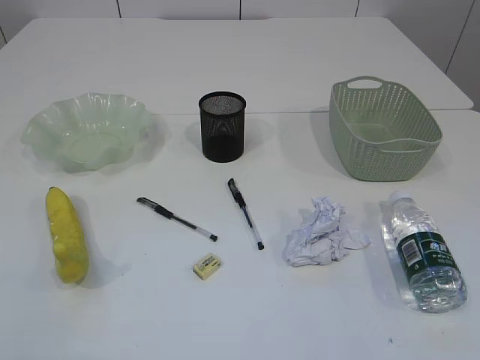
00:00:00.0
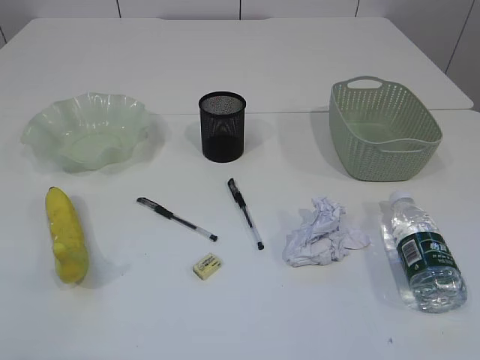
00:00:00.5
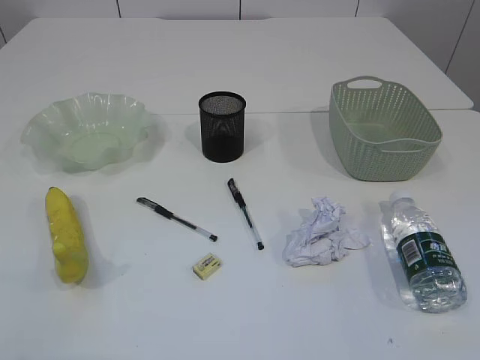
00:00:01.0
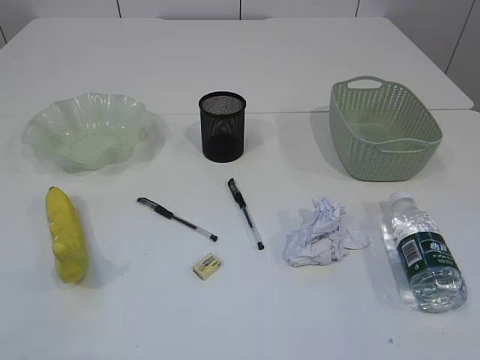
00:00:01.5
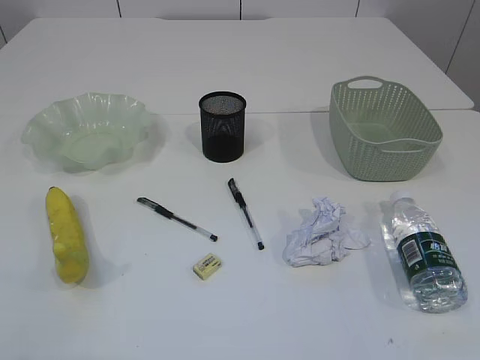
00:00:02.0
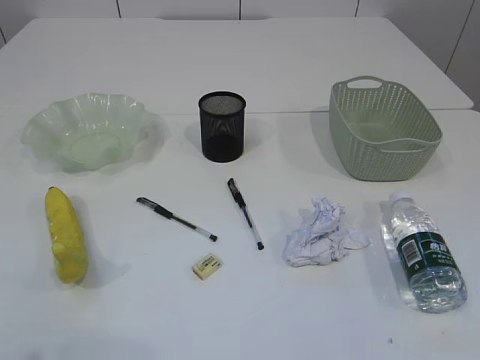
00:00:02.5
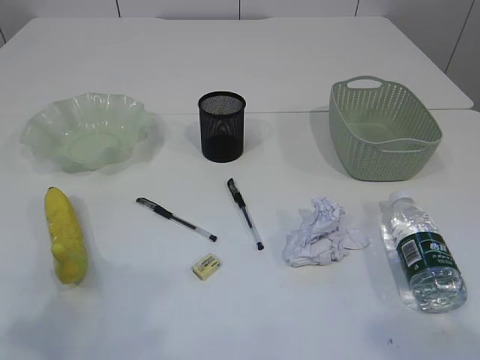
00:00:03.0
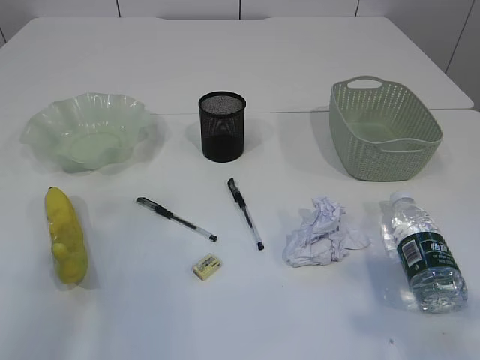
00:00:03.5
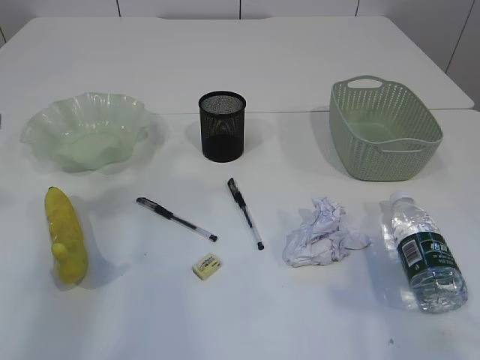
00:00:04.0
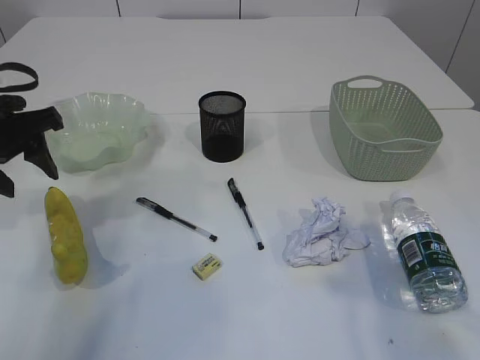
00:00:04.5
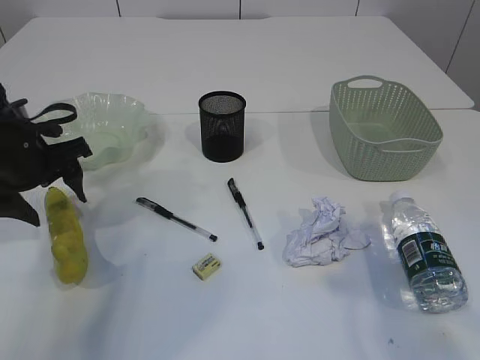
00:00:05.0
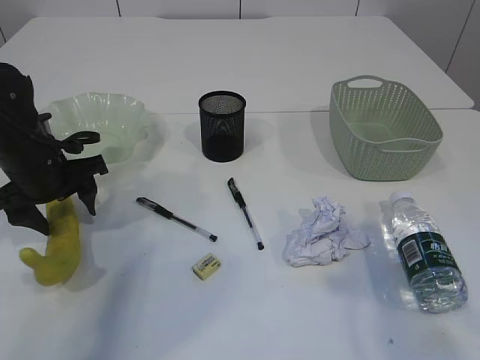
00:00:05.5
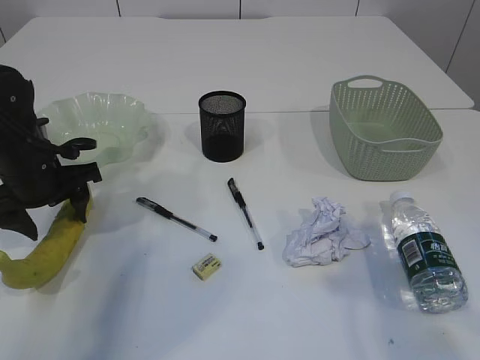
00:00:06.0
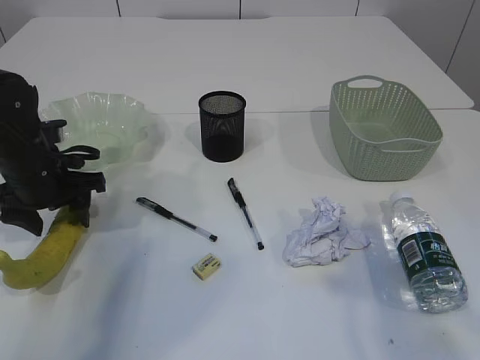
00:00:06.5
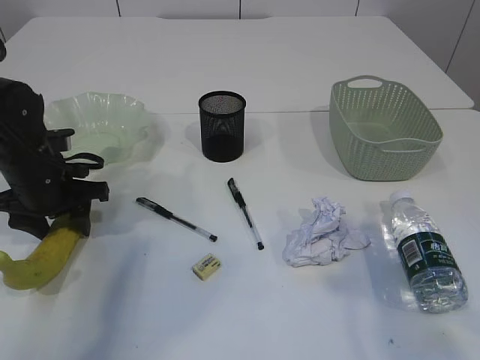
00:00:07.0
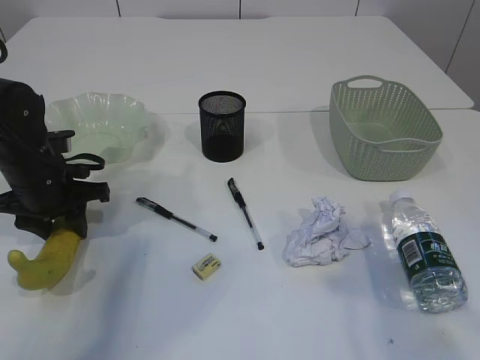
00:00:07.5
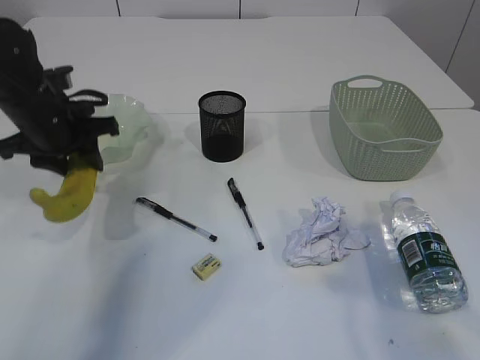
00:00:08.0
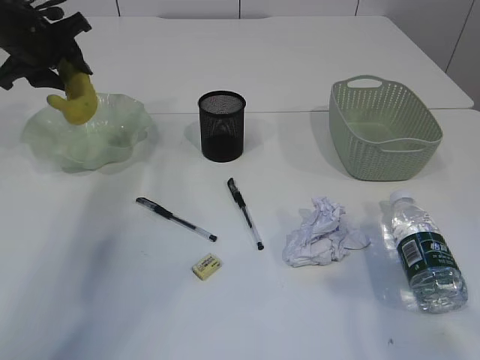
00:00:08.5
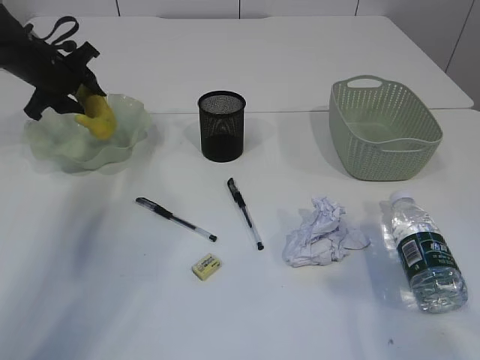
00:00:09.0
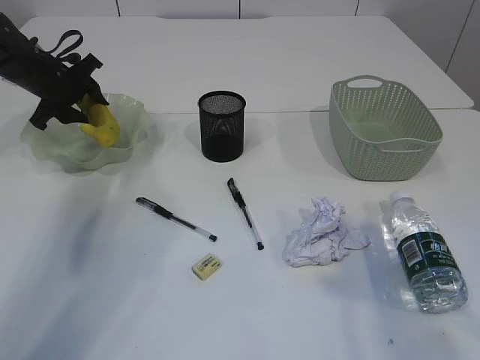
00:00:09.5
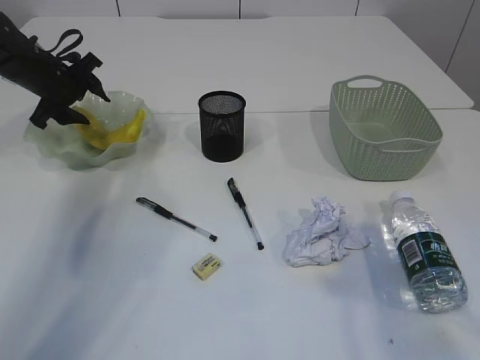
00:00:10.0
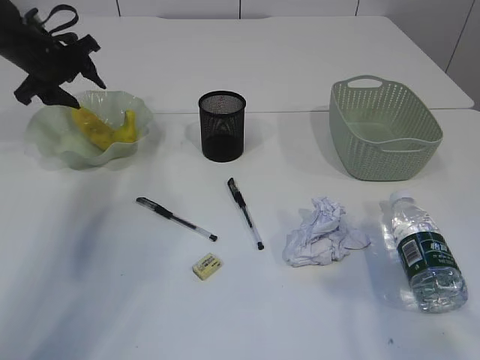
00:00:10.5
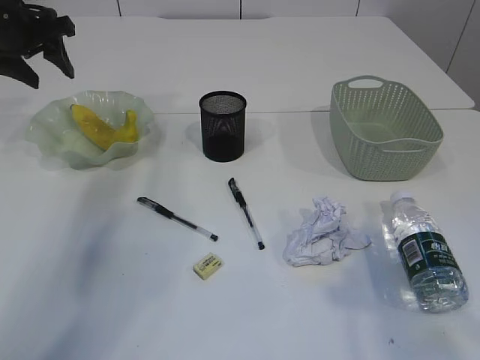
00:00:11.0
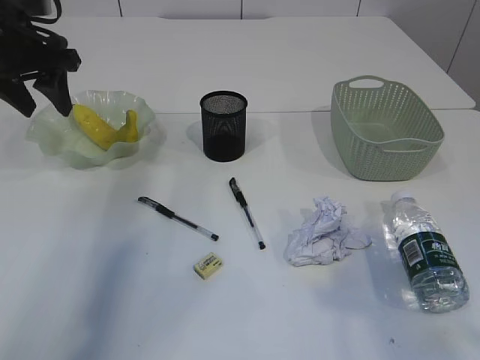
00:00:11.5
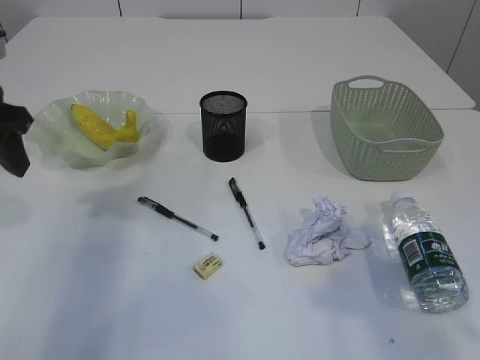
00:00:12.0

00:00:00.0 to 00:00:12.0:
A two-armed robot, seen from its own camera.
Step, 00:00:08.0 to 00:00:11.0: Place the banana in the plate.
00:00:02.0 to 00:00:04.0: The left gripper travels forward by about 30 cm. The right gripper shifts approximately 15 cm forward and upward.
00:00:04.0 to 00:00:06.0: The left gripper shifts roughly 20 cm downward and forward, and opens.
00:00:06.0 to 00:00:08.0: The left gripper ends up approximately 5 cm from where it was, and closes up.
00:00:08.0 to 00:00:10.0: The left gripper moves forward and to the left, about 15 cm.
00:00:10.0 to 00:00:12.0: The left gripper shifts roughly 25 cm backward and upward.

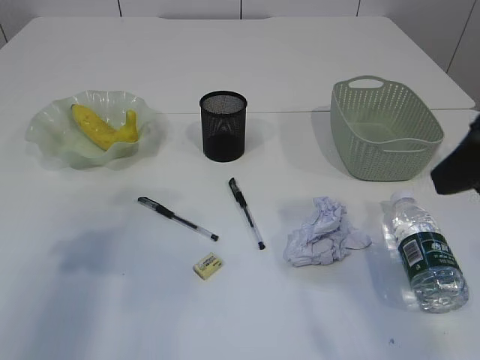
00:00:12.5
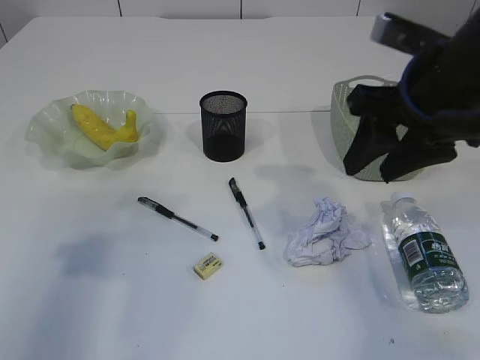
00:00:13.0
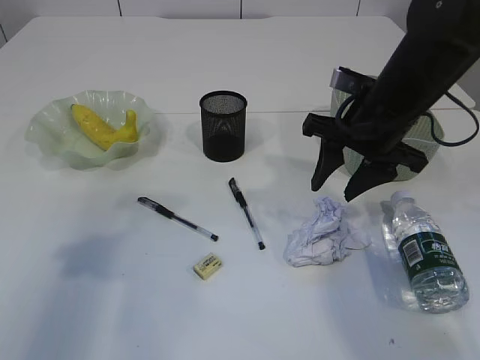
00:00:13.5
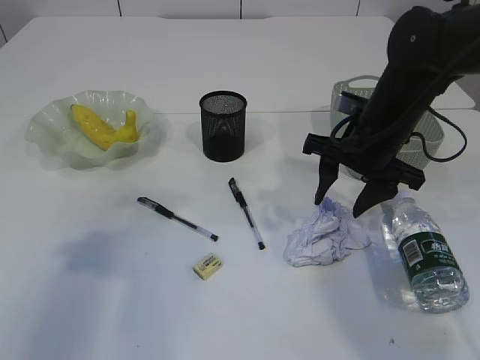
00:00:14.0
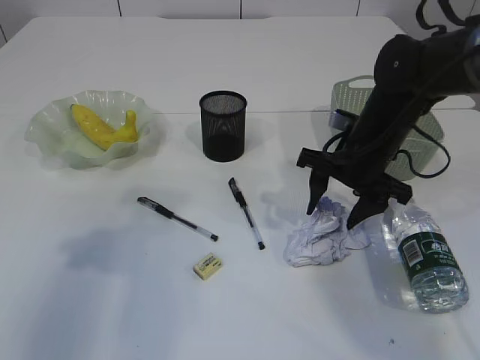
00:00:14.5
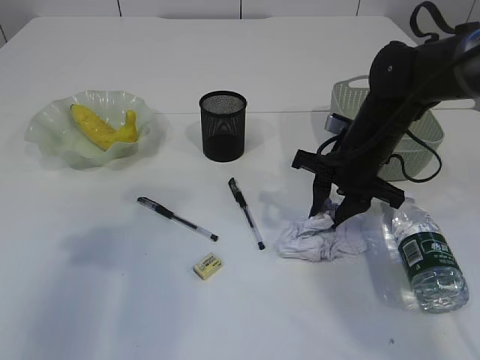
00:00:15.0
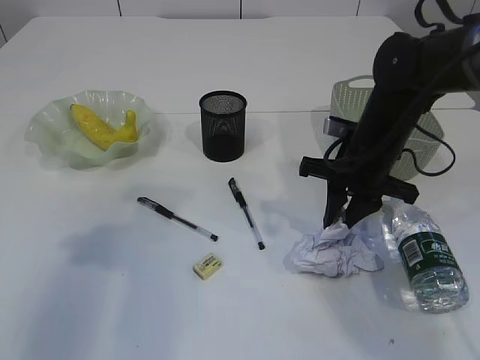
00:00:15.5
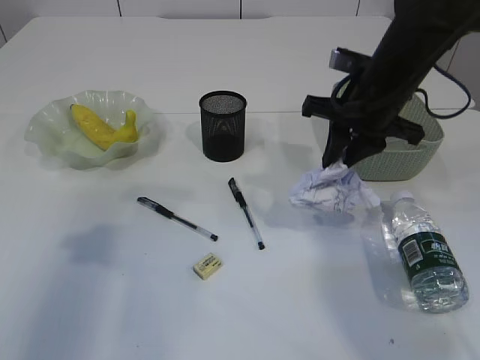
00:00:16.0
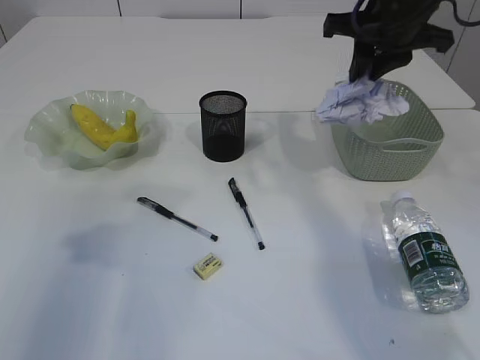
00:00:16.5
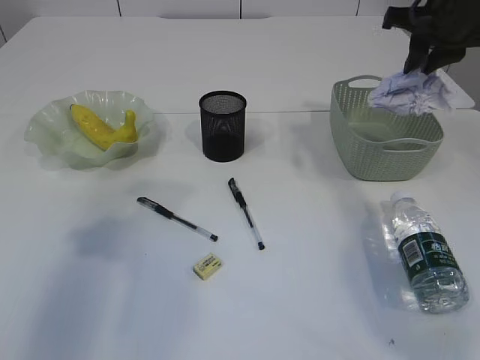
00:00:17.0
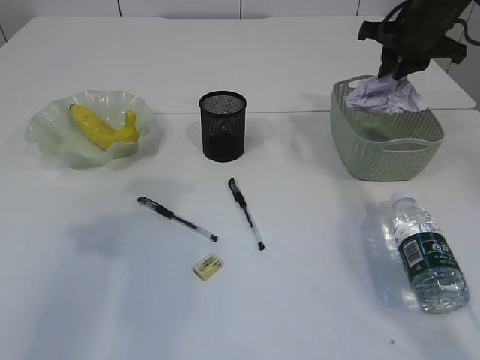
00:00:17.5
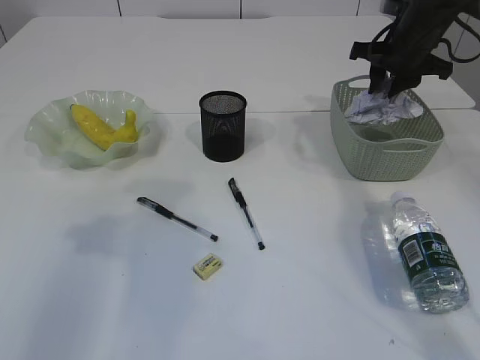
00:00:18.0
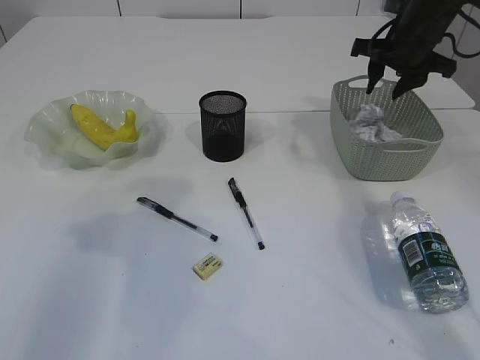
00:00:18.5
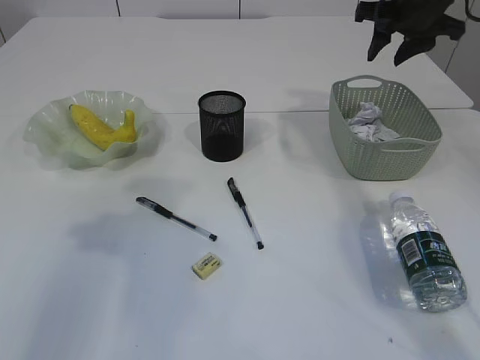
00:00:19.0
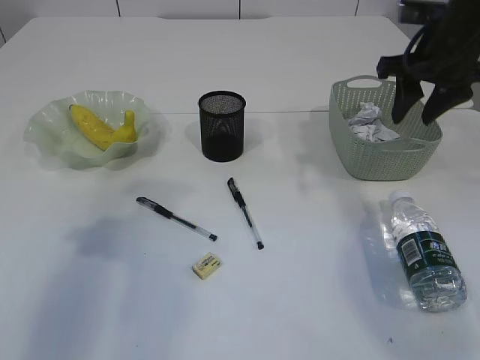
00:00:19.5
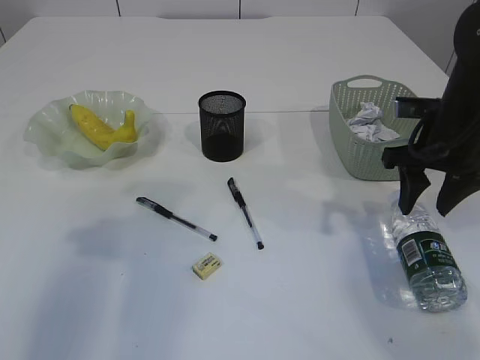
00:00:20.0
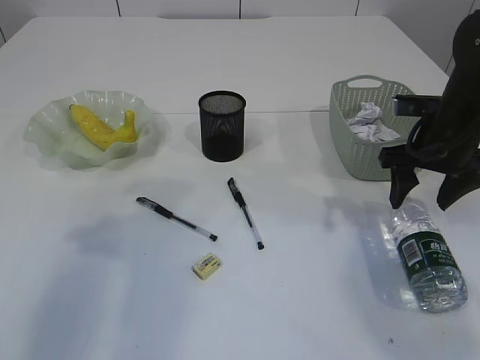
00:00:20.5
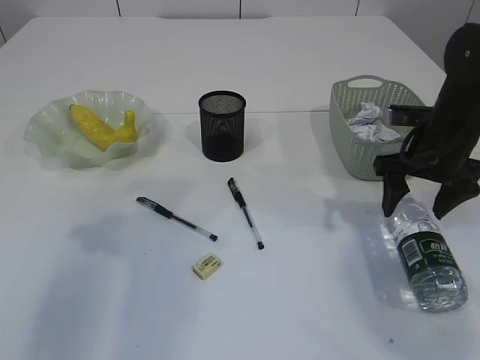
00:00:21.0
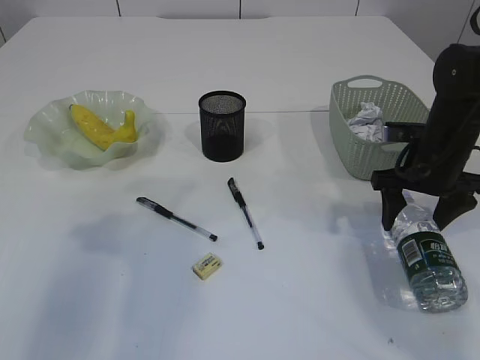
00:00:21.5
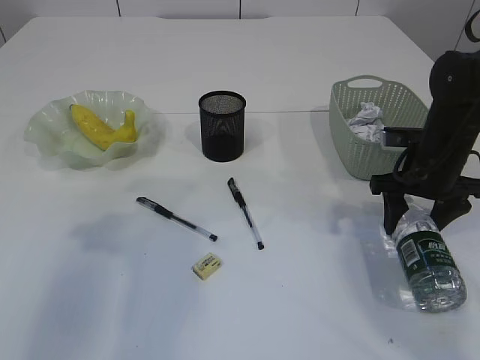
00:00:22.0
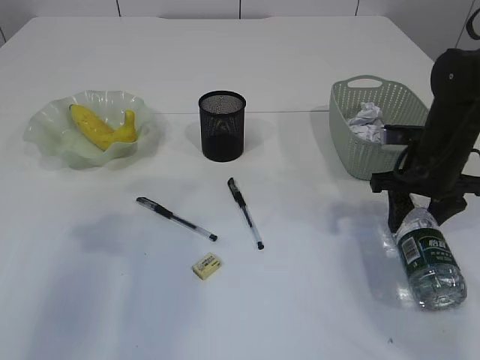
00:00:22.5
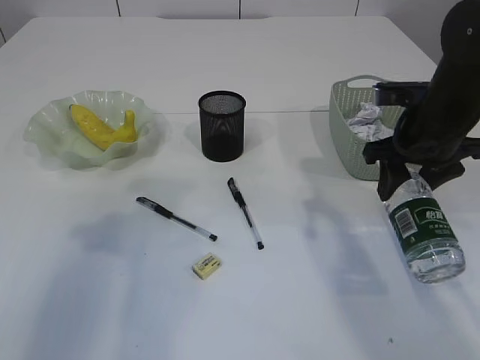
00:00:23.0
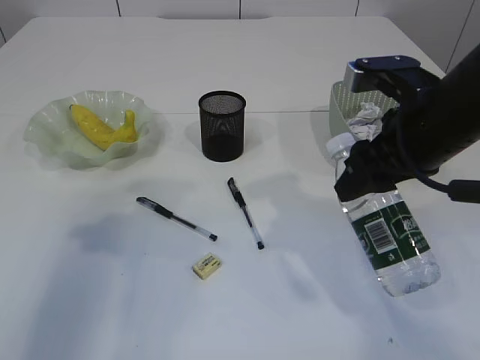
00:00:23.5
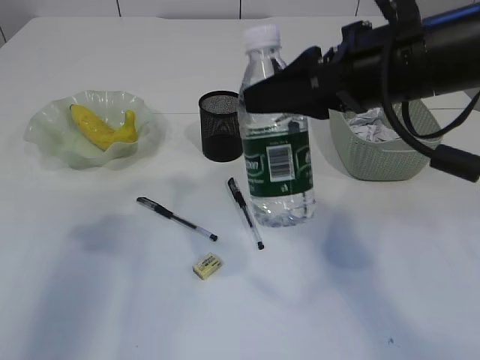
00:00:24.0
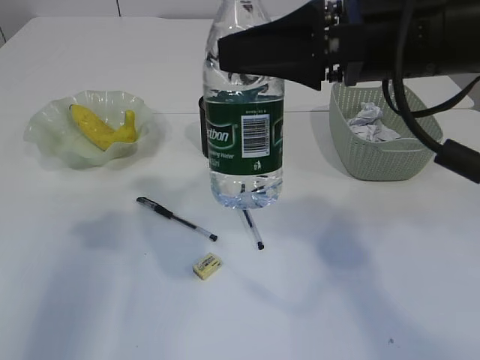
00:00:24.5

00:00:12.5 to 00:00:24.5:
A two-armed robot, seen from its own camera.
Step, 00:00:12.5 to 00:00:15.5: Pick up the waste paper.
Step, 00:00:16.0 to 00:00:19.0: Place the waste paper in the basket.
Step, 00:00:19.5 to 00:00:23.5: Pick up the bottle with the right arm.
00:00:12.5 to 00:00:14.5: The right gripper goes roughly 25 cm forward and downward.
00:00:14.5 to 00:00:16.5: The right gripper is displaced upward by some 15 cm, and closes up.
00:00:16.5 to 00:00:18.5: The right gripper heads forward, to the right and downward, covering about 15 cm.
00:00:18.5 to 00:00:20.5: The right gripper heads backward and downward, covering roughly 15 cm, and opens its fingers.
00:00:20.5 to 00:00:22.5: The grippers make only small movements.
00:00:22.5 to 00:00:24.5: The right gripper goes about 25 cm upward, to the left and backward.

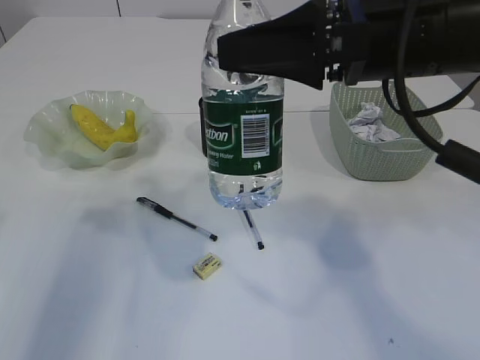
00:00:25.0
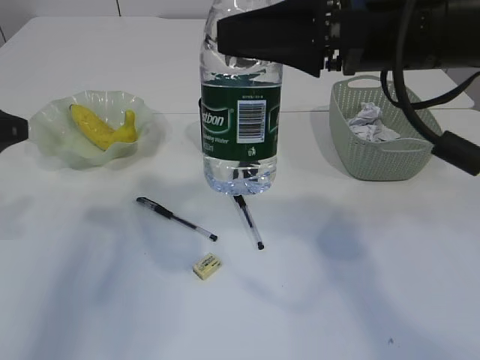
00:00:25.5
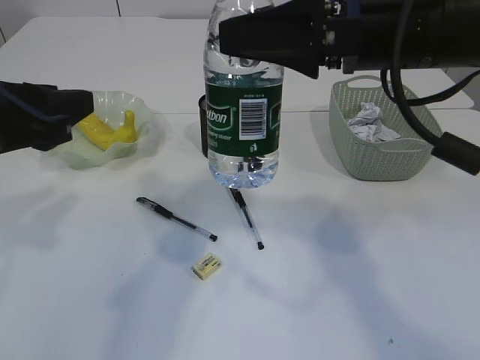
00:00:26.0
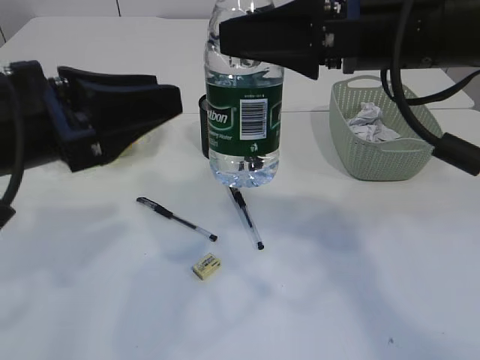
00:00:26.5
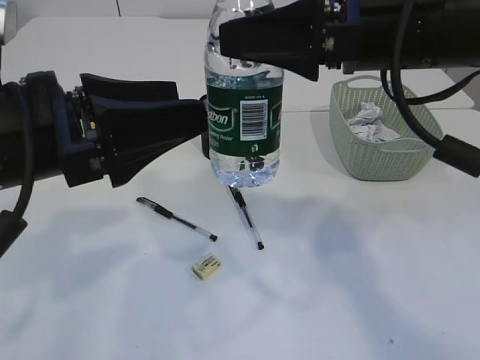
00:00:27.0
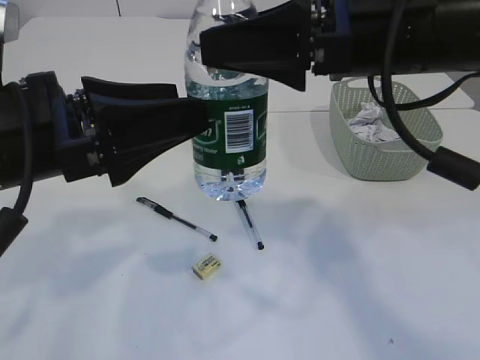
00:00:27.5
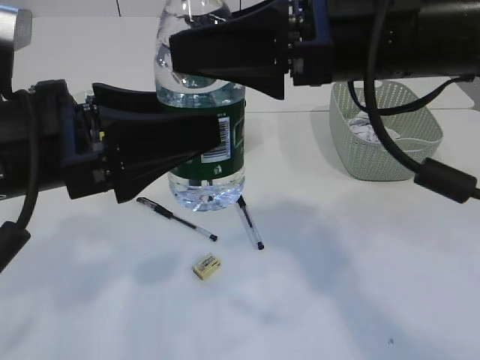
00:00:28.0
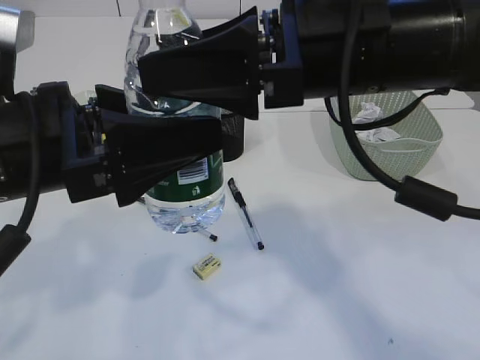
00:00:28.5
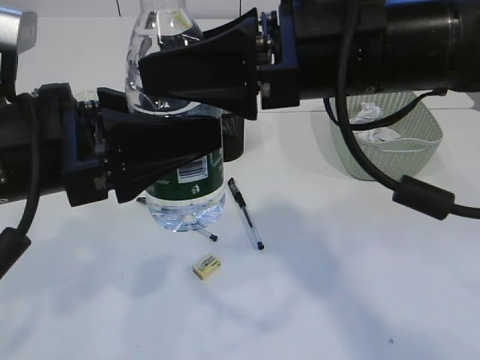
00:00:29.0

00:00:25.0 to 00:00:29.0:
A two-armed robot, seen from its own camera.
00:00:25.0 to 00:00:27.0: The left gripper shifts approximately 10 cm to the right, and opens its fingers.
00:00:27.0 to 00:00:29.0: The right gripper changes place by about 5 cm.
